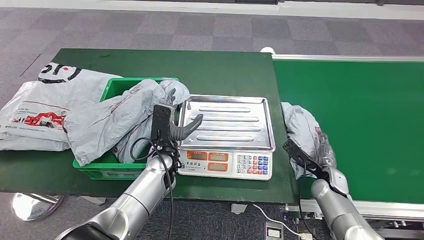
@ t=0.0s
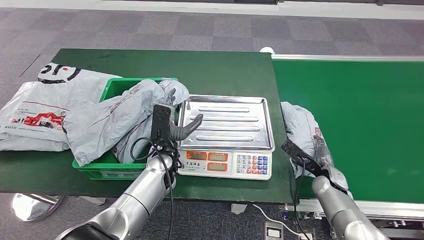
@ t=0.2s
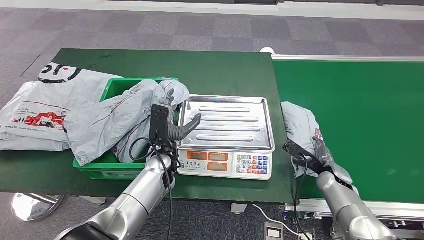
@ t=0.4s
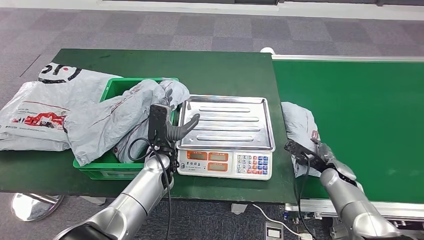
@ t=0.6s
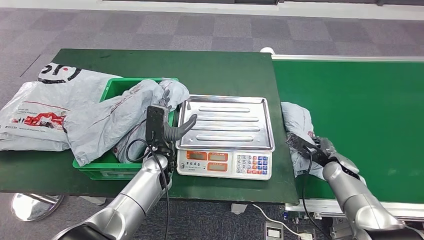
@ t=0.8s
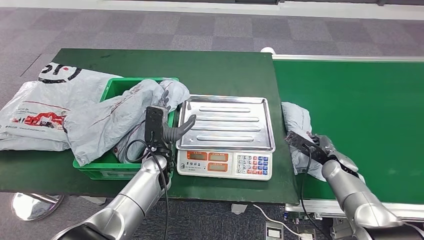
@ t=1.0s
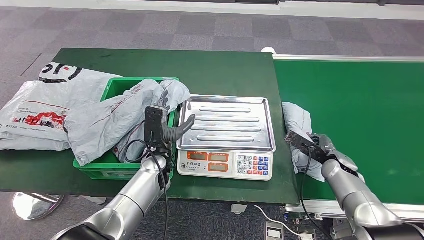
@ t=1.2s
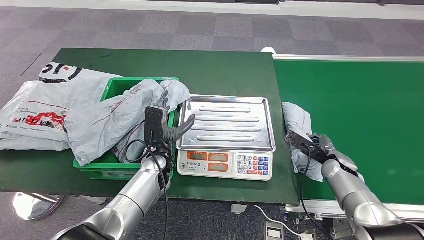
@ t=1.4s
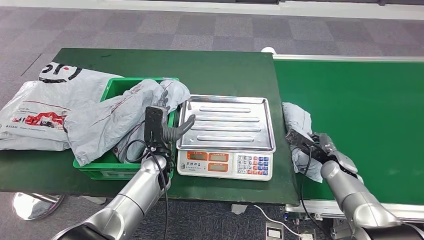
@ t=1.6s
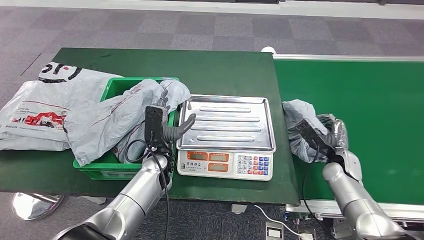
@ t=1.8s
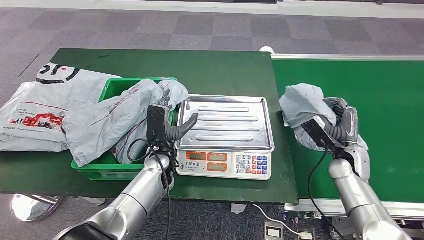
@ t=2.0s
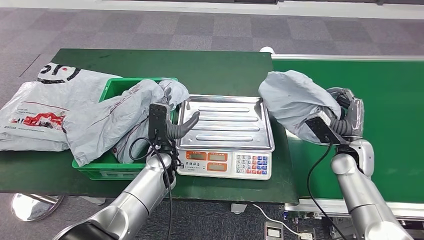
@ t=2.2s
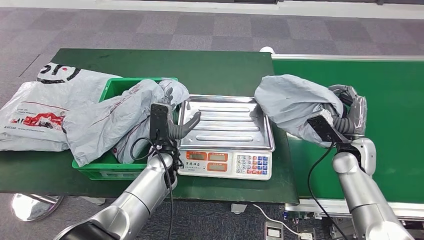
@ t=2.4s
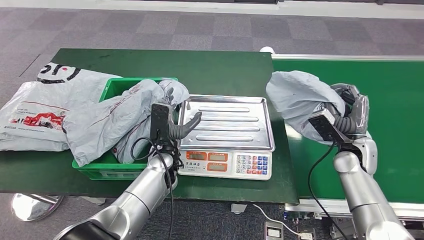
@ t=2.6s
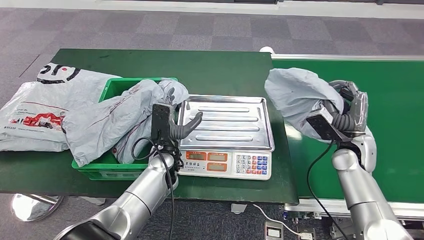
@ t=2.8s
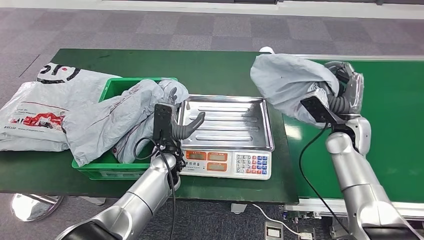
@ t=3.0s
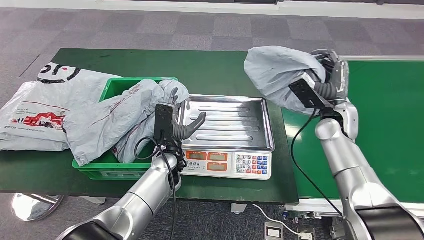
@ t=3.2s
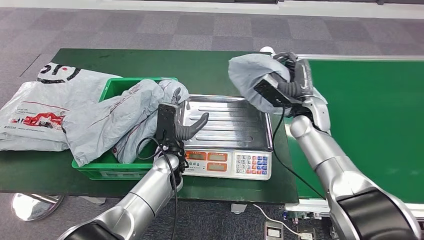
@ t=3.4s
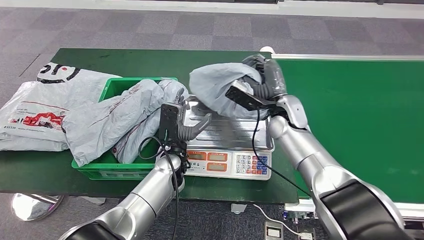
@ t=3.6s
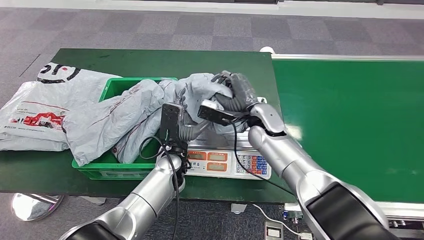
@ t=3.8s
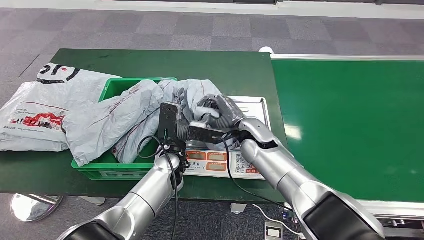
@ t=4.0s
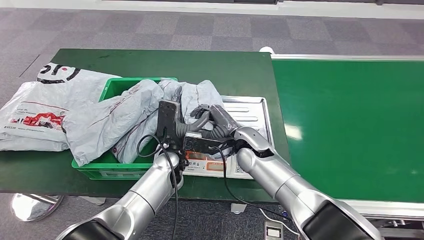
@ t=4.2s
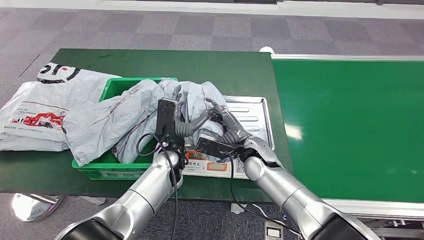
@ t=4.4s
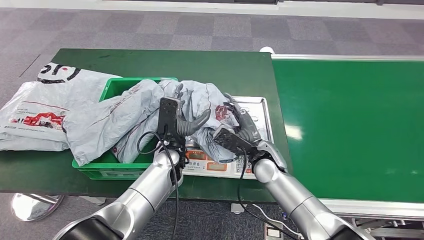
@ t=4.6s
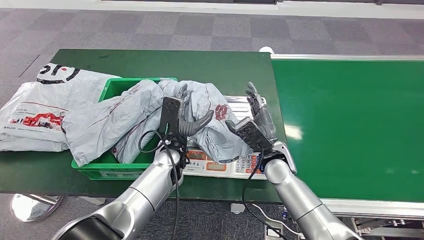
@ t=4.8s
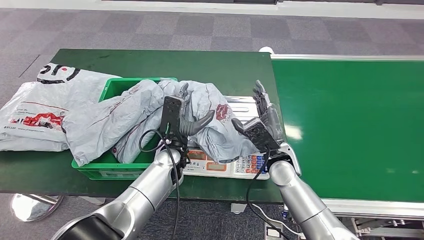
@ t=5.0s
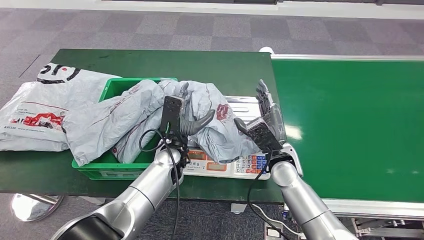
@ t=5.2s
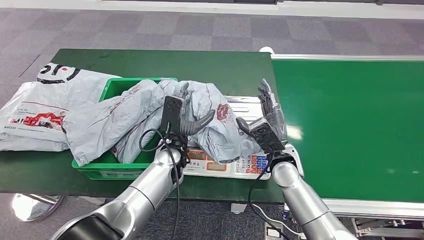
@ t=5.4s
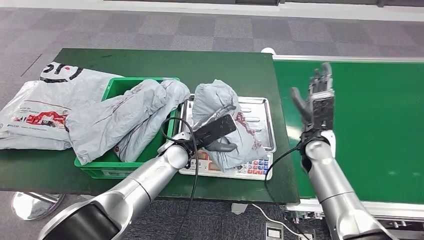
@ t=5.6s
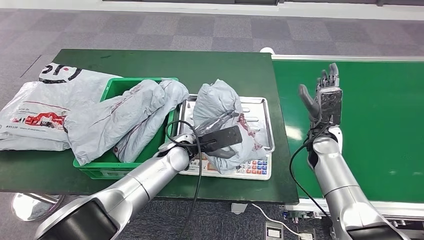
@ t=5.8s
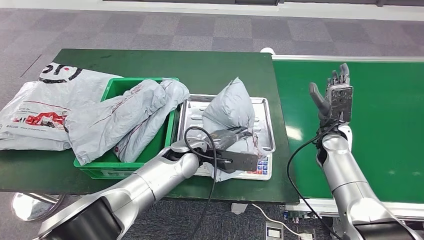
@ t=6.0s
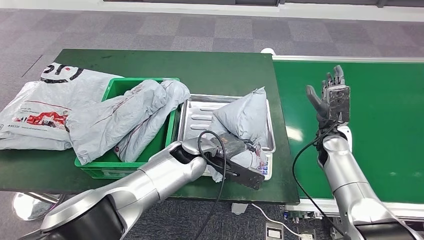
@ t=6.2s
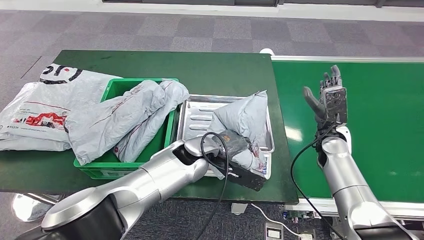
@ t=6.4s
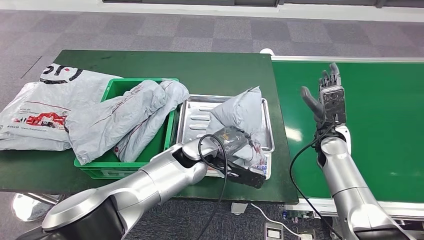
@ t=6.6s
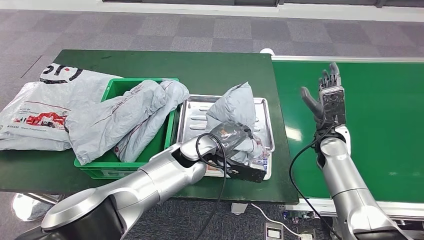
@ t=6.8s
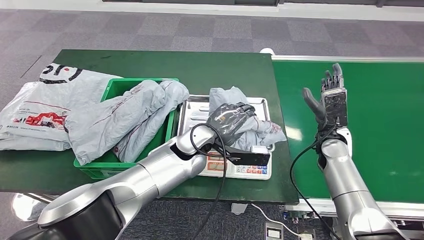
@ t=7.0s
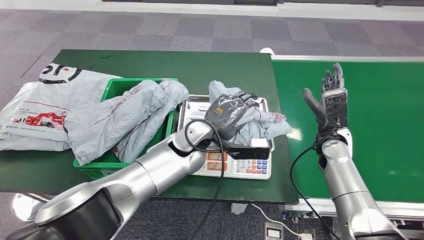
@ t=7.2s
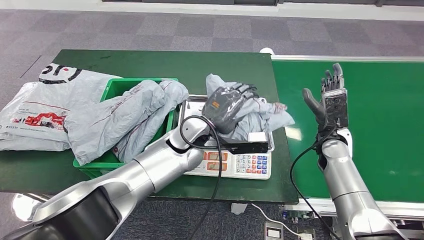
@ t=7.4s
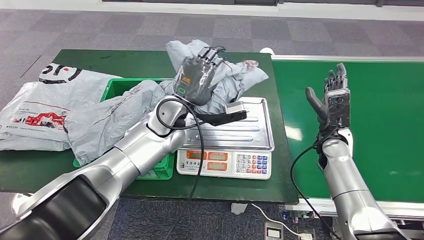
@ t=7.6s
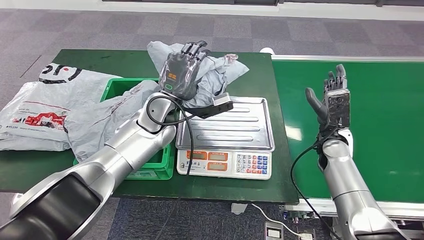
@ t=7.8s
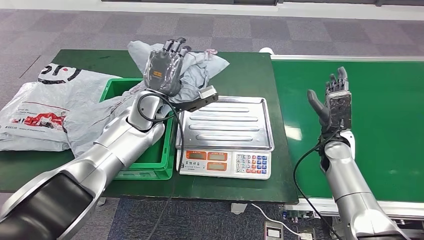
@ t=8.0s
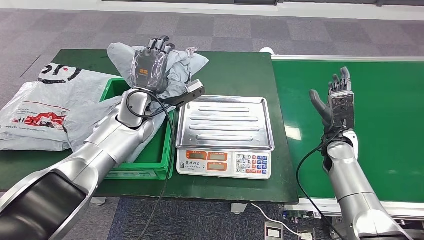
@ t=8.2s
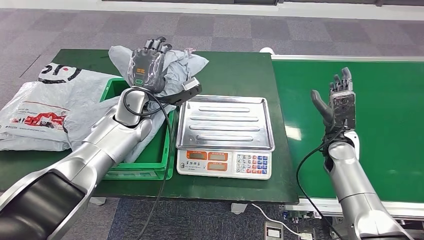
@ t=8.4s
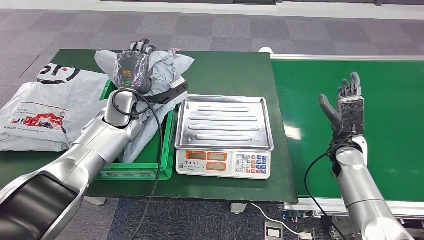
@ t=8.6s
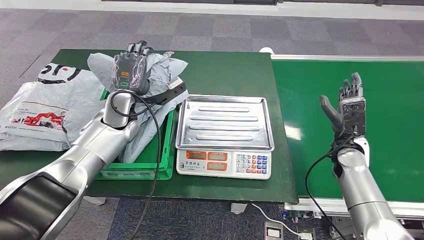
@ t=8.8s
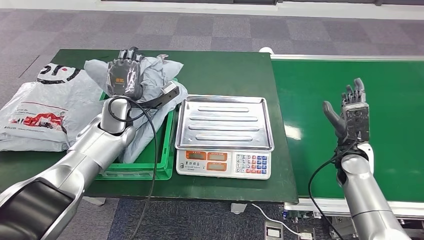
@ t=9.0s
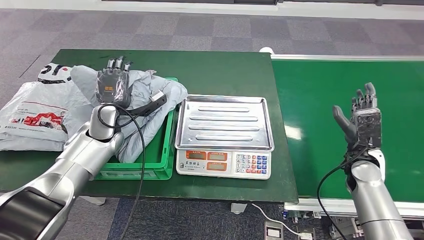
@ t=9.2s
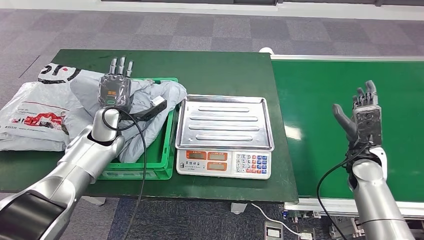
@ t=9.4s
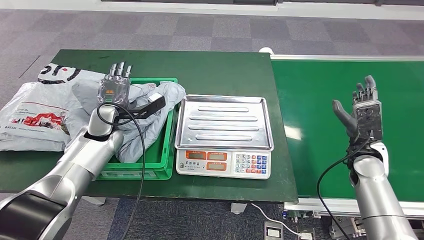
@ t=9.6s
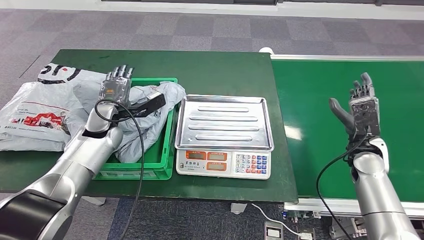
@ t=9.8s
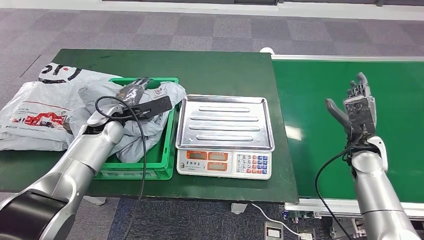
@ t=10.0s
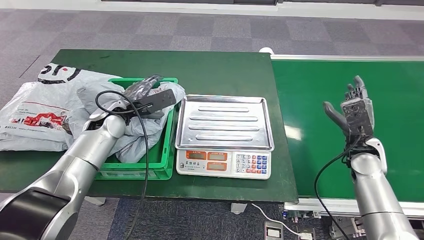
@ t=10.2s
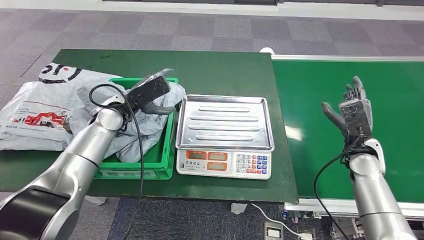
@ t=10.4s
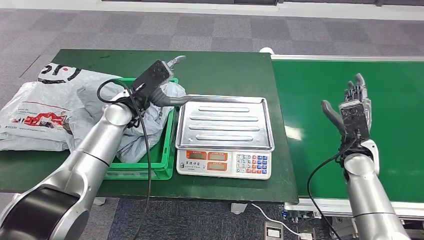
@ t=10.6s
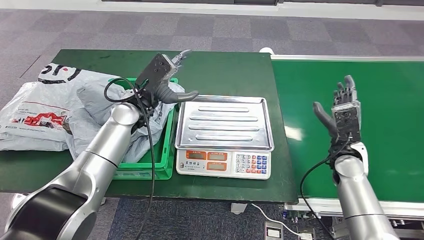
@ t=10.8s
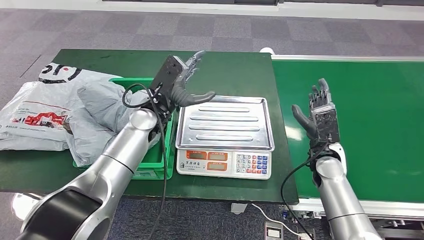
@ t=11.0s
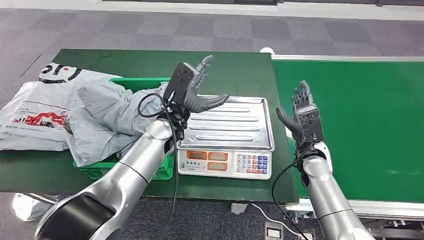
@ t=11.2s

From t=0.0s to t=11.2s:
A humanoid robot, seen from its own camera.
Step, from t=1.2s to t=5.4s: Place the parcel onto the inbound machine.
Step, from t=5.6s to t=7.4s: Pick up the parcel from the inbound machine.
Step, from t=7.6s to t=11.0s: Place the parcel into the delivery box.
From t=0.0s to t=1.6s: The right hand ends up about 5 cm from where it was.
